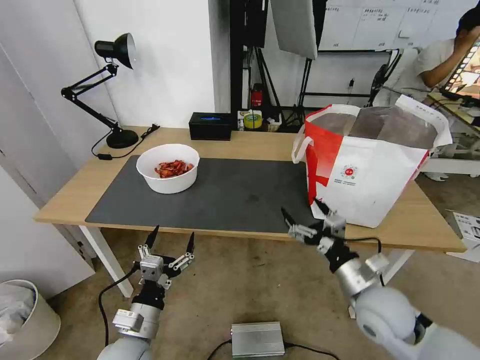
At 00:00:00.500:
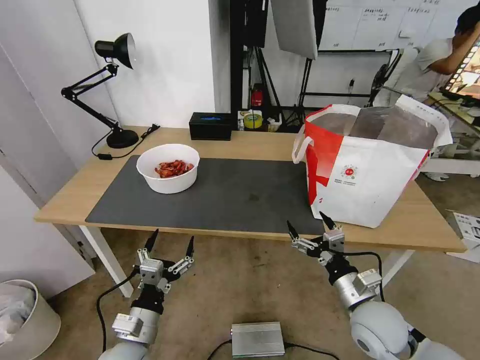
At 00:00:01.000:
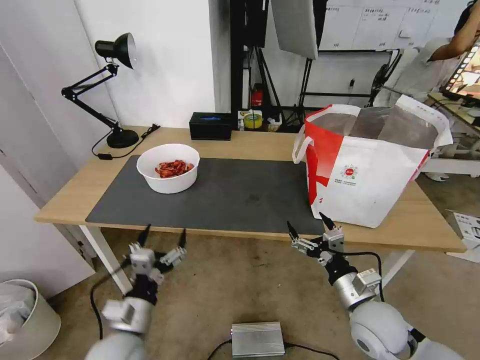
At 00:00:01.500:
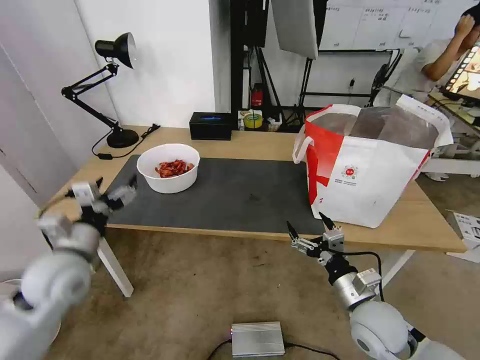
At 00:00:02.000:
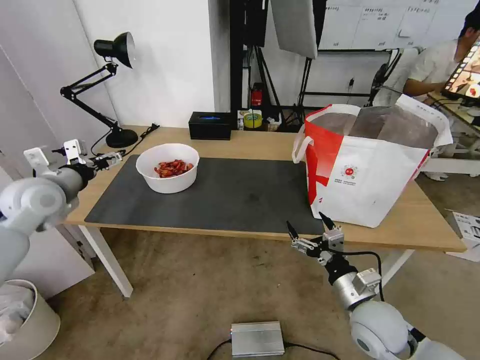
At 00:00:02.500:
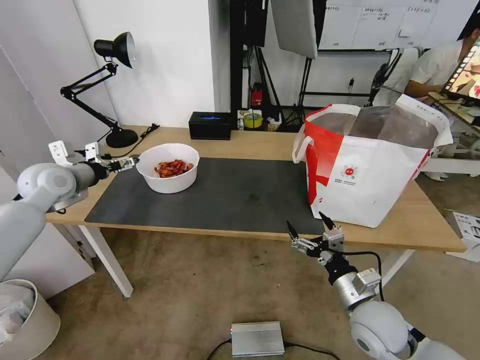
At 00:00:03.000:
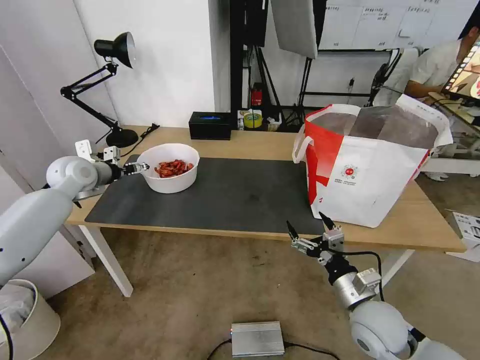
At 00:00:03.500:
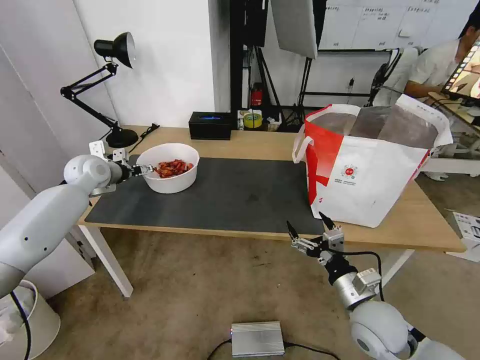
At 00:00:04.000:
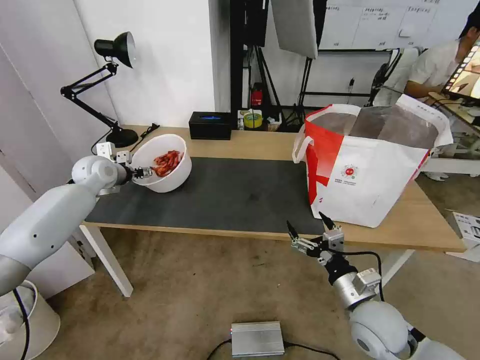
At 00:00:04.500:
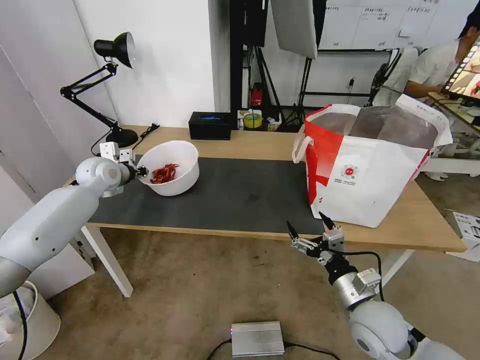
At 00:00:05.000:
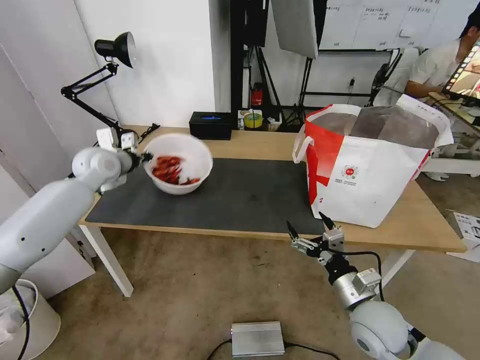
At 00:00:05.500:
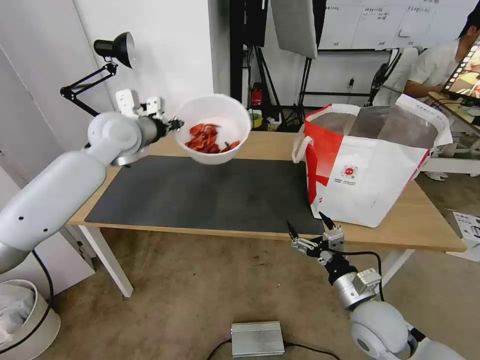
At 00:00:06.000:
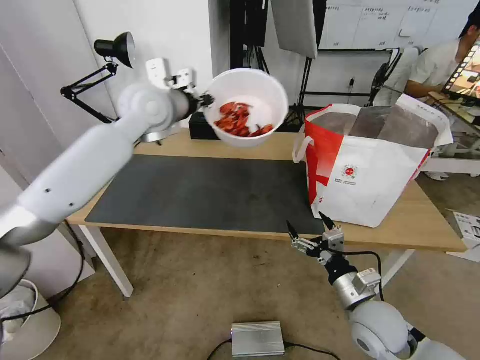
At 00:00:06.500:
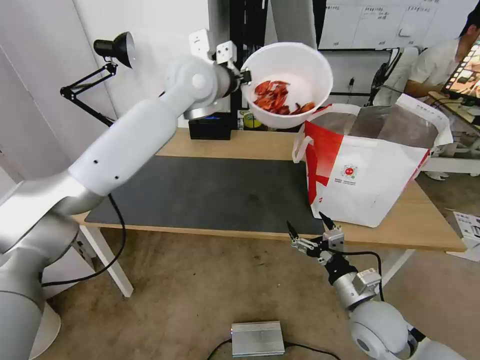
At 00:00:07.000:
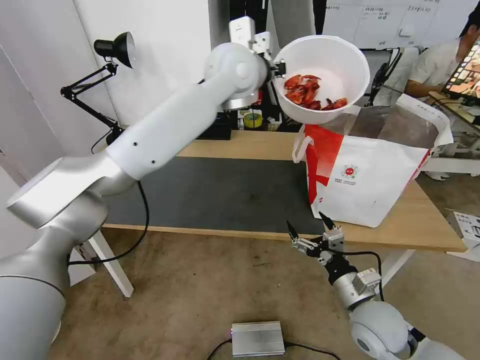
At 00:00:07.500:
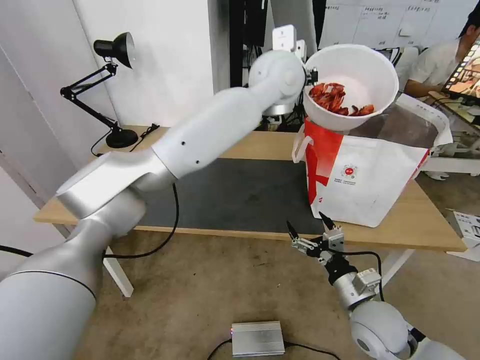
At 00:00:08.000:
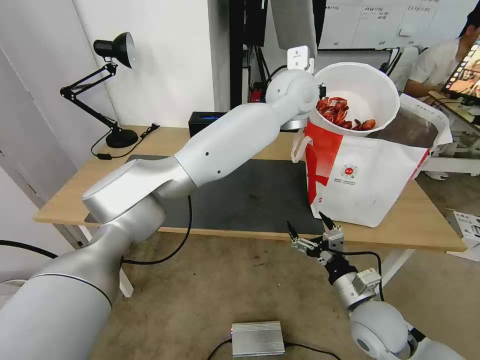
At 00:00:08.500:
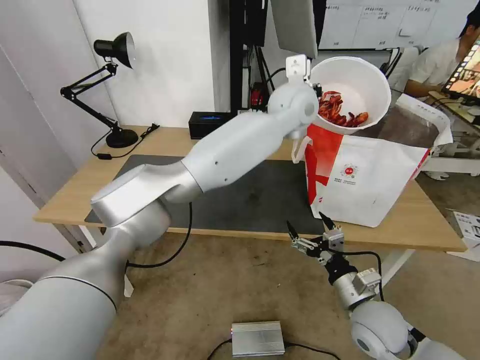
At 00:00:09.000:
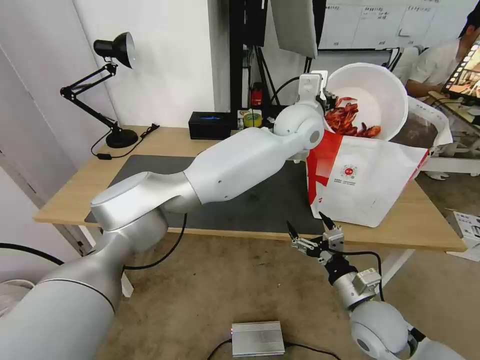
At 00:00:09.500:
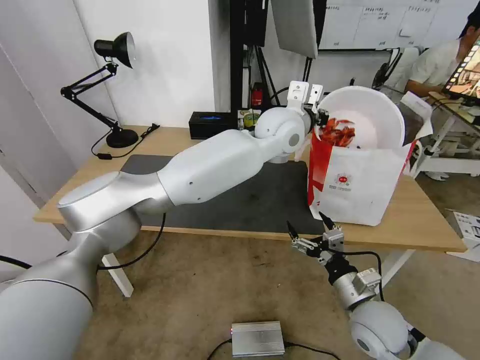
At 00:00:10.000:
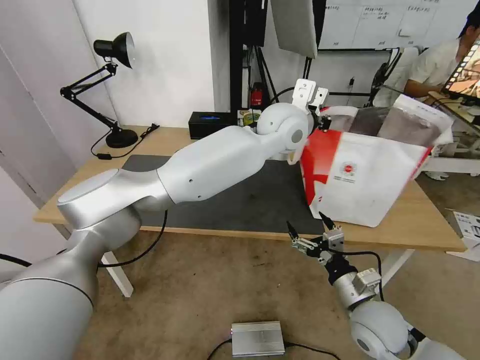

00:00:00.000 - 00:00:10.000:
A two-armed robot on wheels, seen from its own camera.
Task of the whole recording: Pick up the trash from the table and place it into the takeout bag.
00:00:00.000 - 00:00:02.000: The left gripper travels forward, upward and to the left by about 35 cm.
00:00:02.000 - 00:00:04.000: The left gripper is displaced forward by roughly 15 cm.
00:00:04.000 - 00:00:06.000: The left gripper shifts approximately 25 cm to the right and upward, and closes its fingers.
00:00:06.000 - 00:00:08.000: The left gripper travels to the right by roughly 25 cm.
00:00:08.000 - 00:00:10.000: The left gripper moves about 5 cm.

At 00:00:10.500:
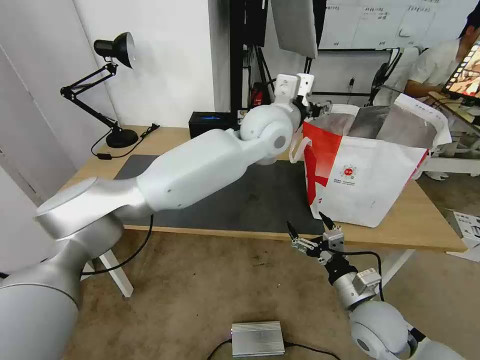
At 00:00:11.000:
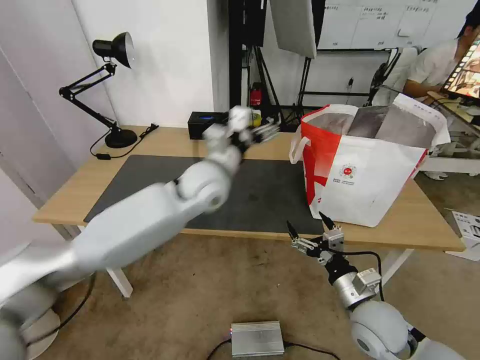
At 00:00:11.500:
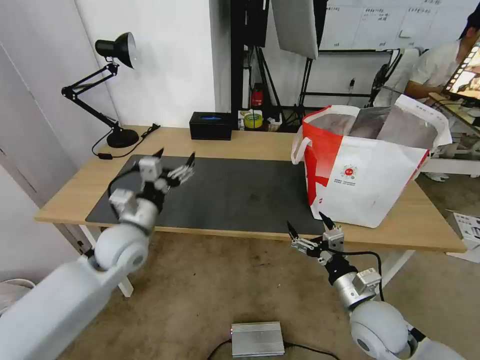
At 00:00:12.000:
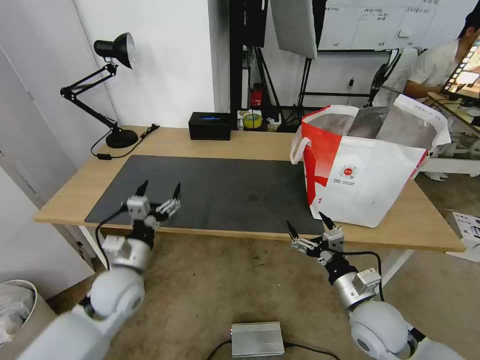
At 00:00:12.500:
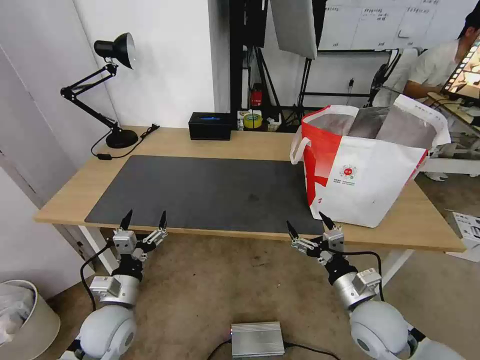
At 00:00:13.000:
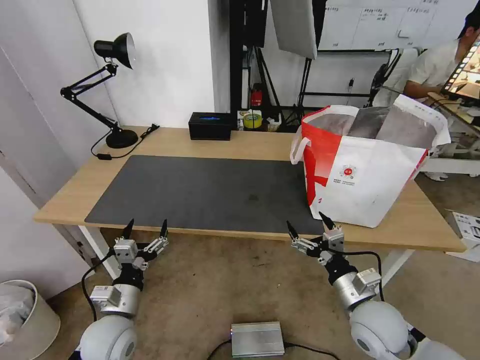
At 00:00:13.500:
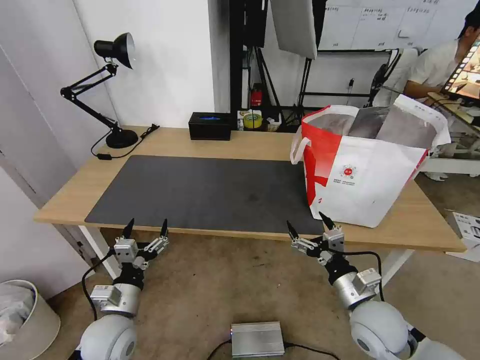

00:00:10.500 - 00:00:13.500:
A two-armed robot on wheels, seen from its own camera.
Task of the whole recording: Pick up the trash from the table and place it into the takeout bag.
00:00:10.500 - 00:00:12.000: The left gripper shifts about 40 cm to the left, downward and backward.
00:00:12.000 - 00:00:13.500: The left gripper shifts roughly 10 cm backward and downward.

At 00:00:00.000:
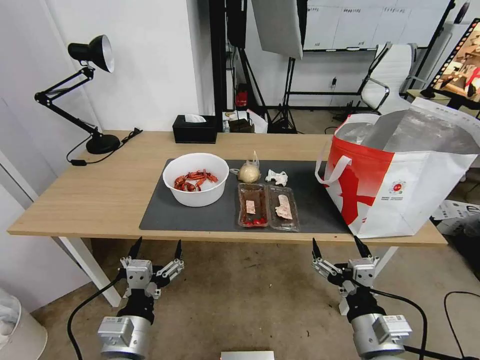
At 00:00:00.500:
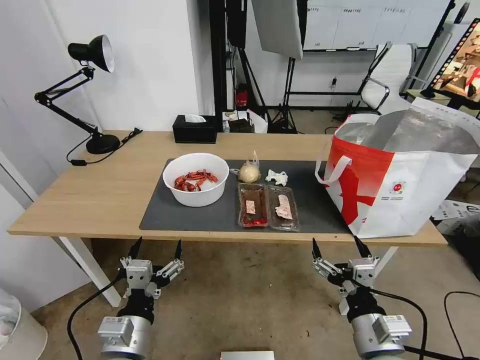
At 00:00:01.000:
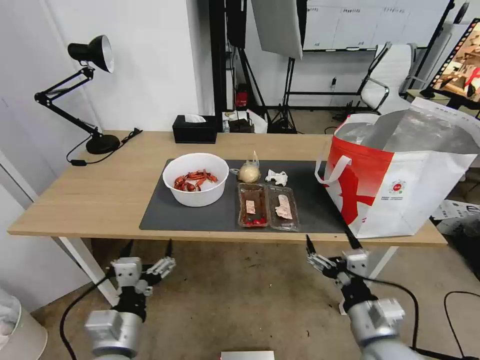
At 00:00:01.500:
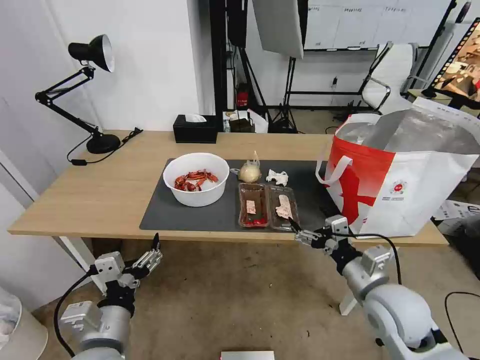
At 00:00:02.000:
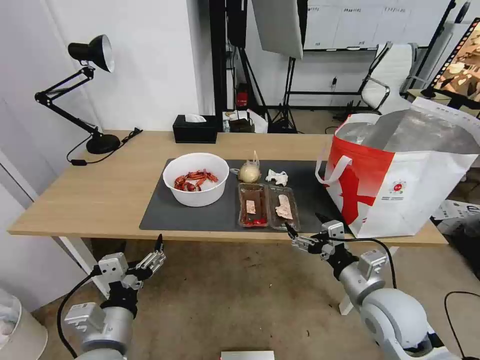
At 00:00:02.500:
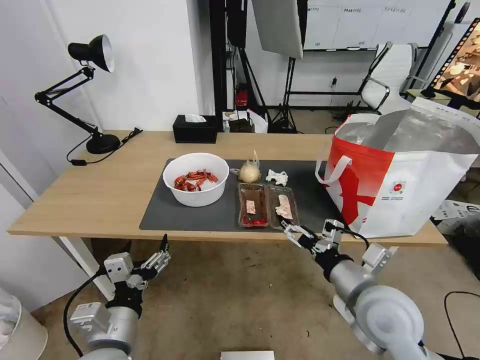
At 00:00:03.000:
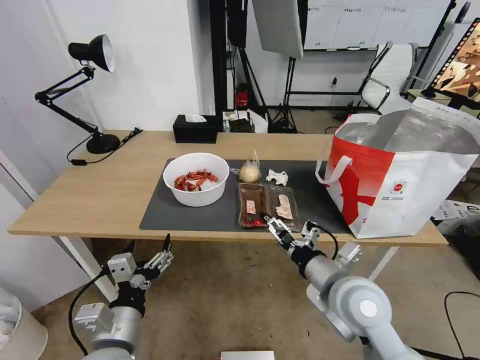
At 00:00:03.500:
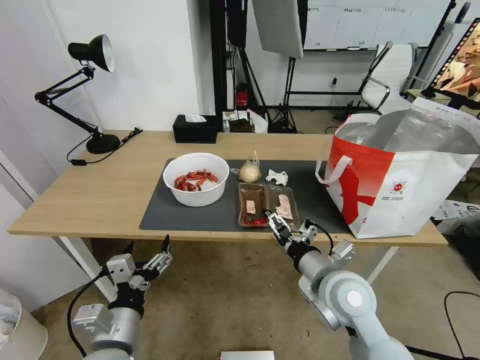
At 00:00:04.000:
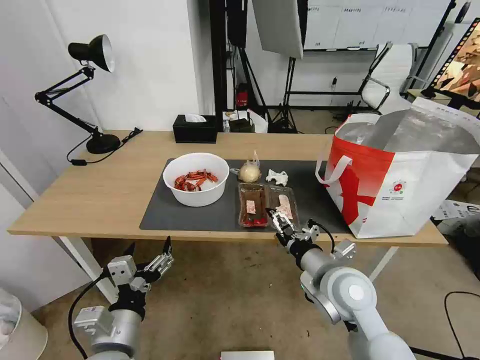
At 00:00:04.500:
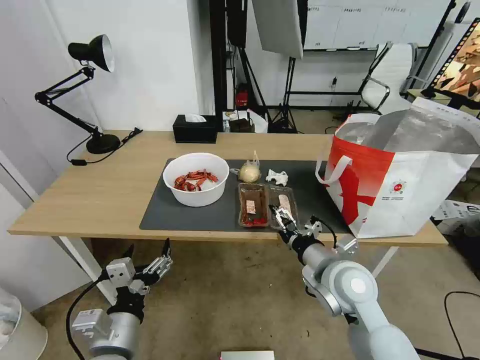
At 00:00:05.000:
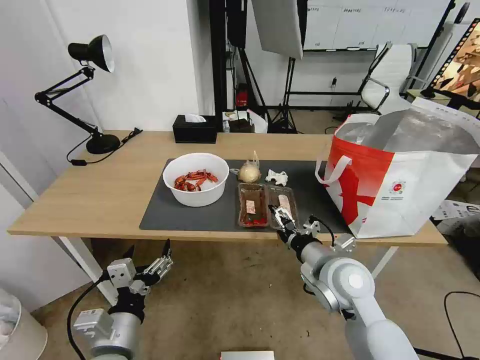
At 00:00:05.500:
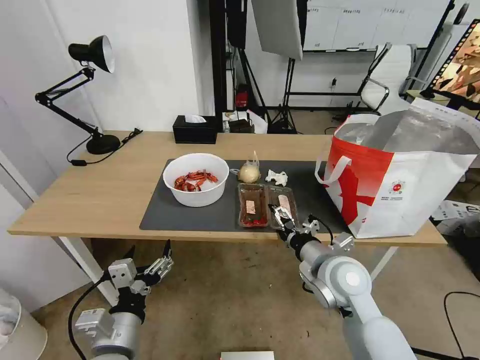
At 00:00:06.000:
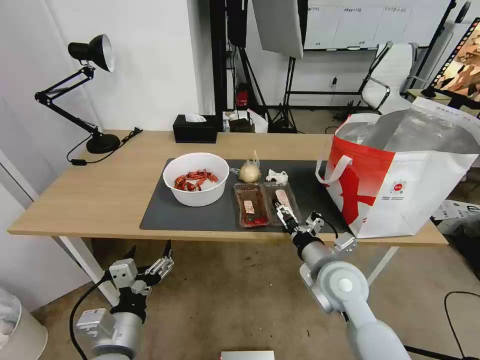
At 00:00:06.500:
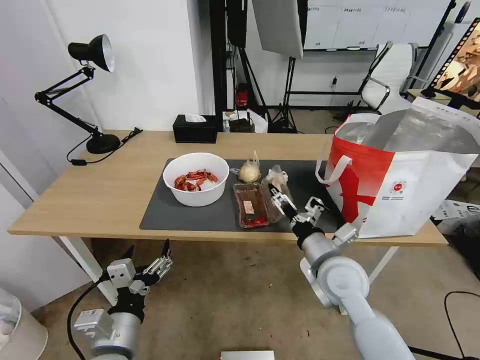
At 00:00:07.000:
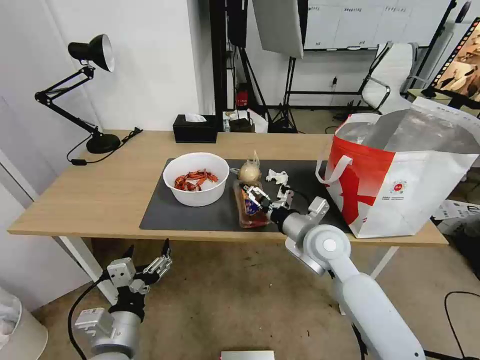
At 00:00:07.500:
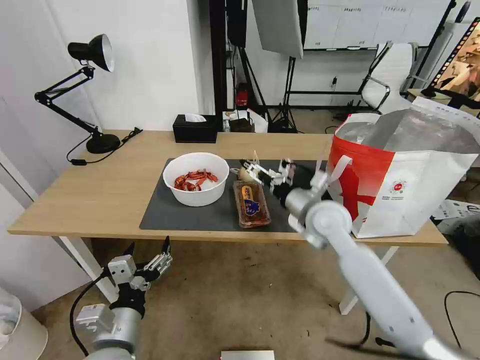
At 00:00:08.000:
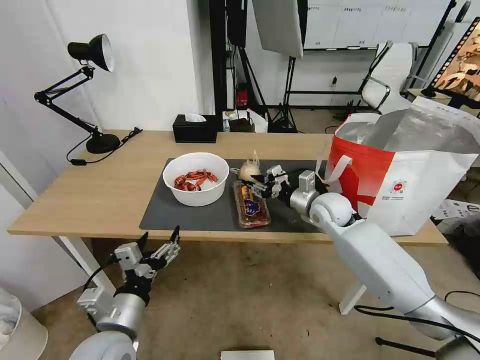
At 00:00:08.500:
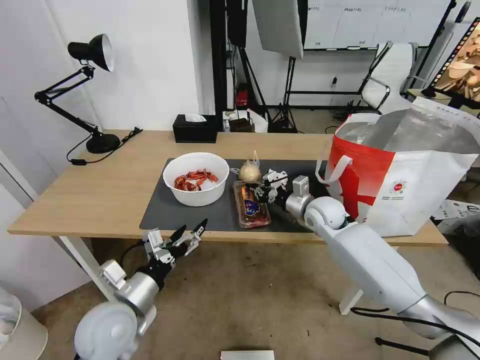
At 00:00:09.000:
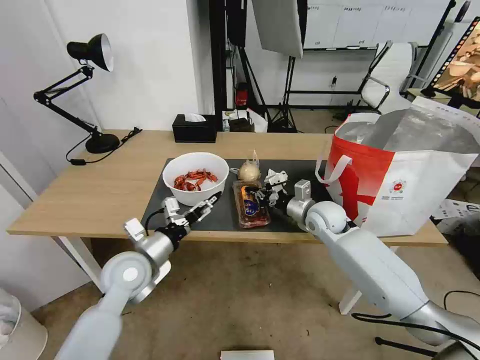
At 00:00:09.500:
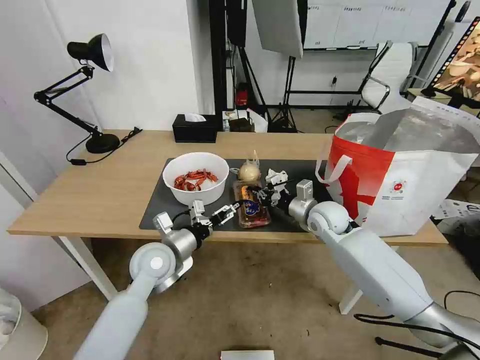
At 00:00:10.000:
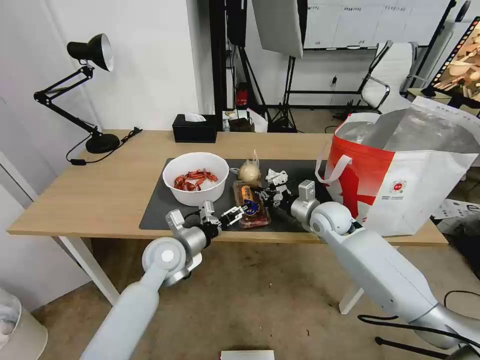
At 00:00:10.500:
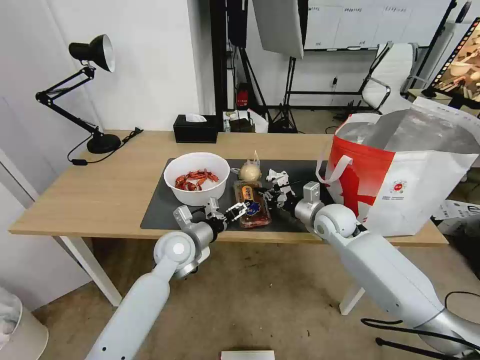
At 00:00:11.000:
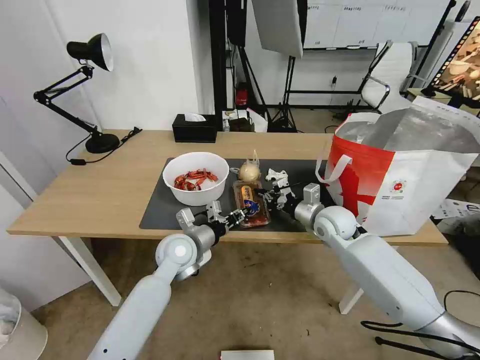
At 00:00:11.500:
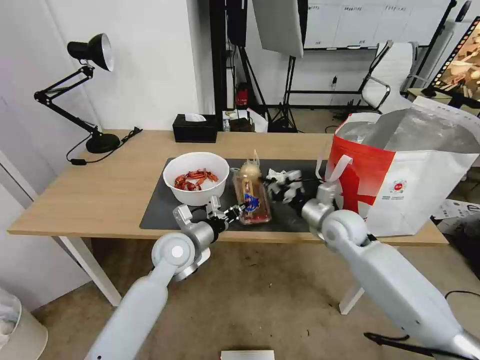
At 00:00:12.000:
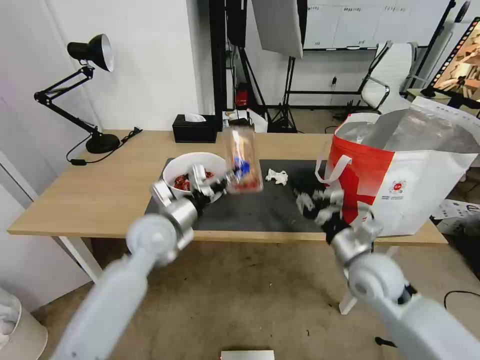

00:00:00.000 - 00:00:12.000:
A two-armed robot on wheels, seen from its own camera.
Task of the whole recording: Pick up the trash from the table and place it into the takeout bag.
00:00:02.000 - 00:00:04.000: The right gripper goes about 10 cm to the left.
00:00:04.000 - 00:00:06.000: The grippers move only a little.
00:00:06.000 - 00:00:08.000: The right gripper is displaced forward by roughly 20 cm, and closes.
00:00:08.000 - 00:00:10.000: The right gripper closes up. The left gripper goes about 20 cm forward.
00:00:10.000 - 00:00:12.000: The left gripper travels upward by roughly 10 cm, and closes. Meanwhile the right gripper goes roughly 15 cm backward.
